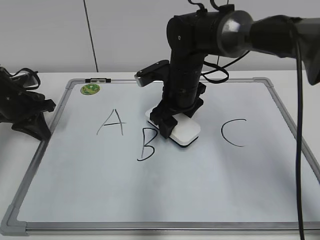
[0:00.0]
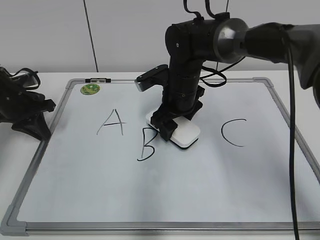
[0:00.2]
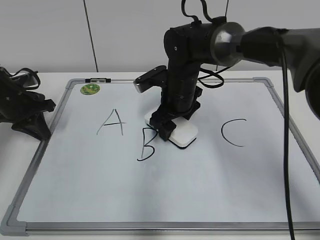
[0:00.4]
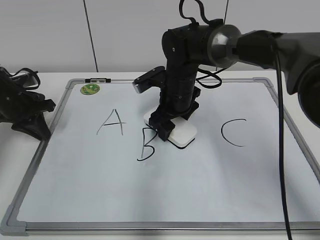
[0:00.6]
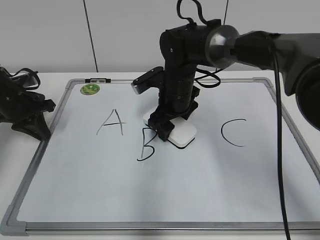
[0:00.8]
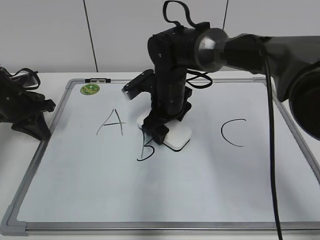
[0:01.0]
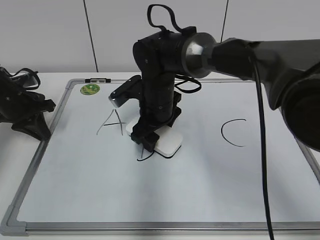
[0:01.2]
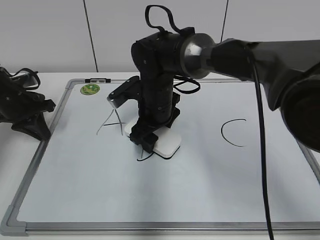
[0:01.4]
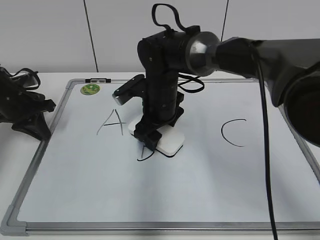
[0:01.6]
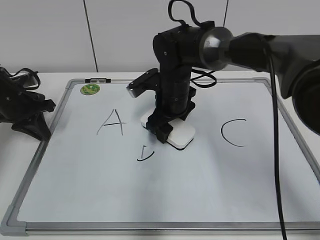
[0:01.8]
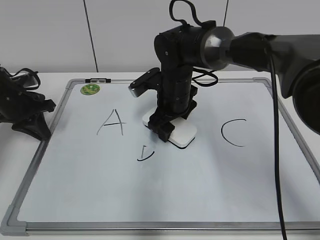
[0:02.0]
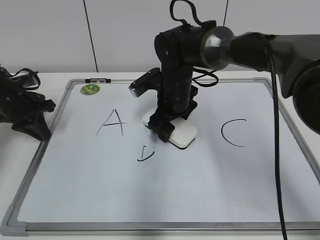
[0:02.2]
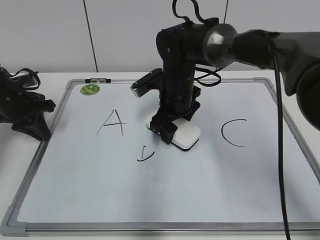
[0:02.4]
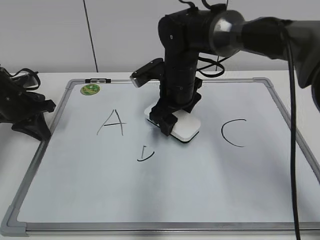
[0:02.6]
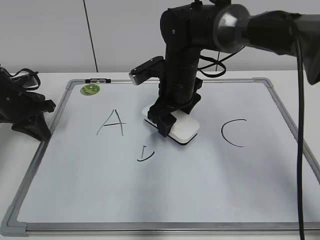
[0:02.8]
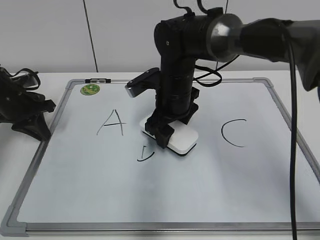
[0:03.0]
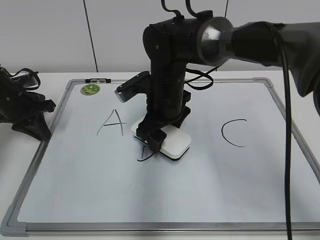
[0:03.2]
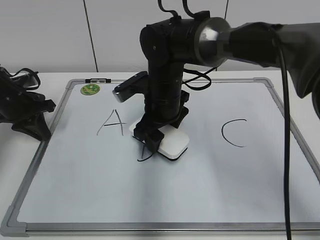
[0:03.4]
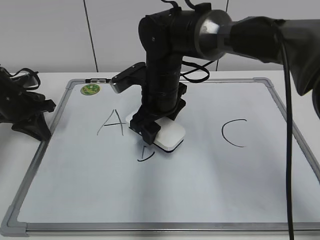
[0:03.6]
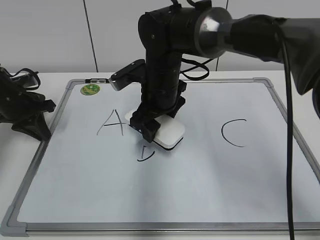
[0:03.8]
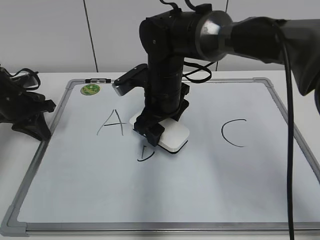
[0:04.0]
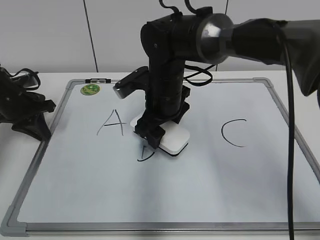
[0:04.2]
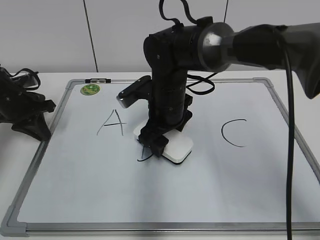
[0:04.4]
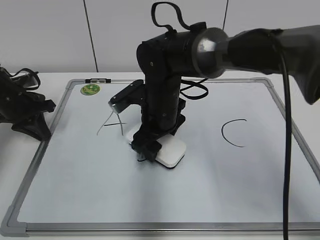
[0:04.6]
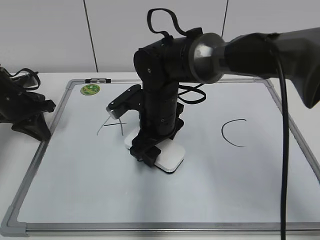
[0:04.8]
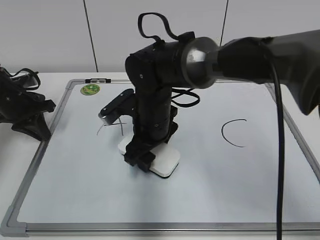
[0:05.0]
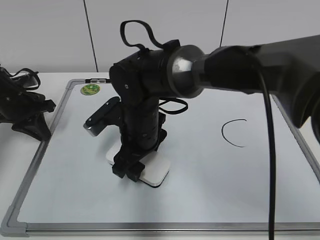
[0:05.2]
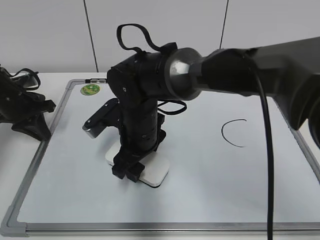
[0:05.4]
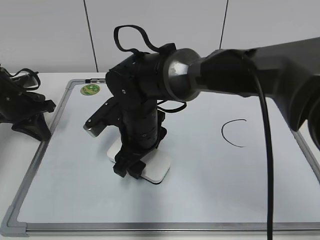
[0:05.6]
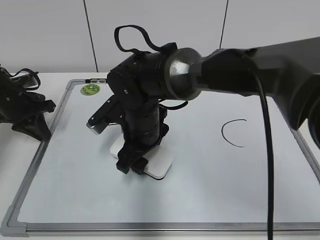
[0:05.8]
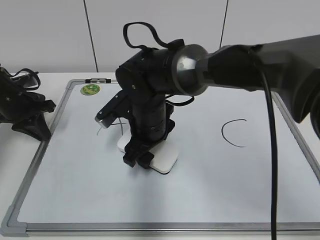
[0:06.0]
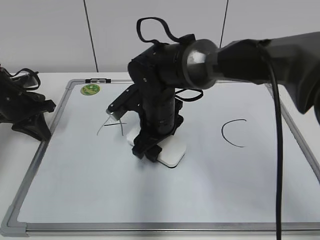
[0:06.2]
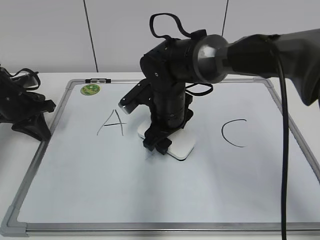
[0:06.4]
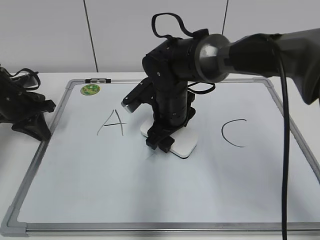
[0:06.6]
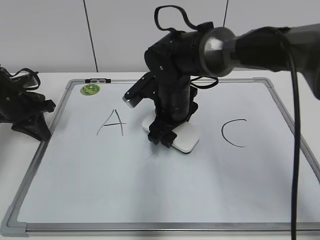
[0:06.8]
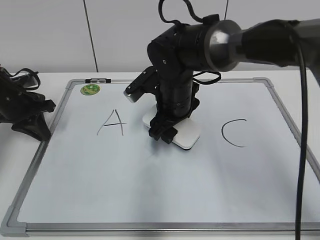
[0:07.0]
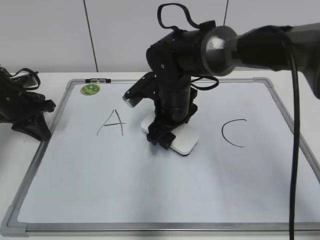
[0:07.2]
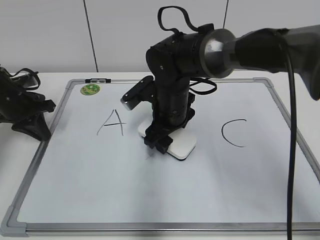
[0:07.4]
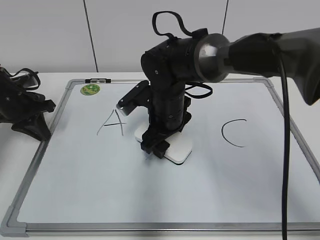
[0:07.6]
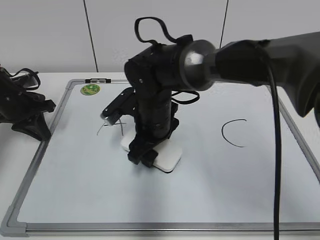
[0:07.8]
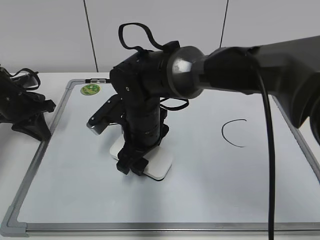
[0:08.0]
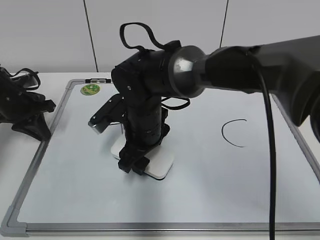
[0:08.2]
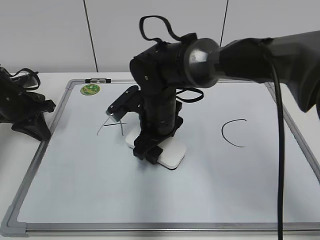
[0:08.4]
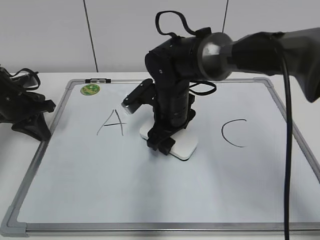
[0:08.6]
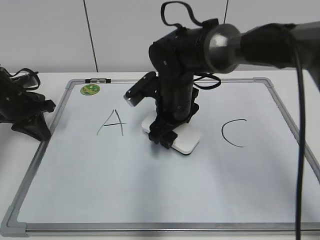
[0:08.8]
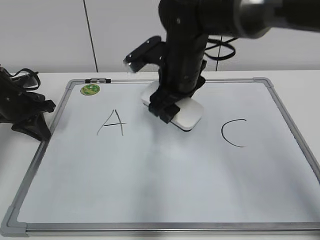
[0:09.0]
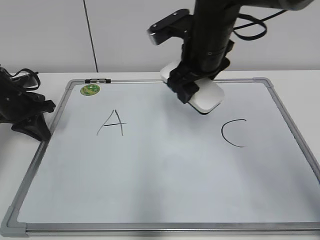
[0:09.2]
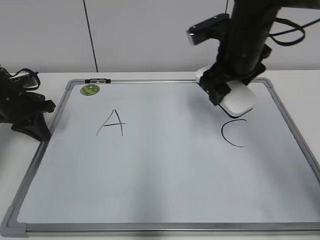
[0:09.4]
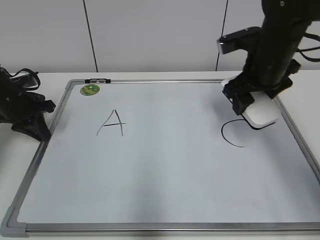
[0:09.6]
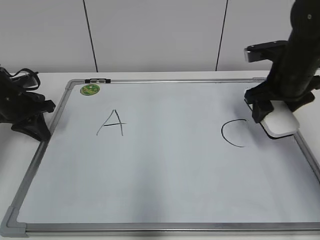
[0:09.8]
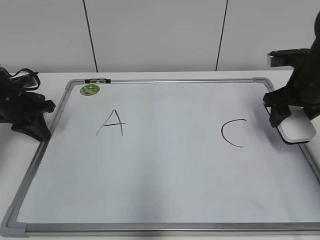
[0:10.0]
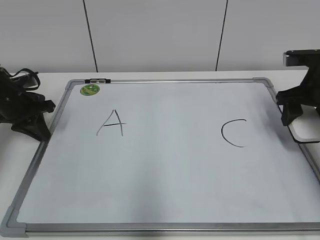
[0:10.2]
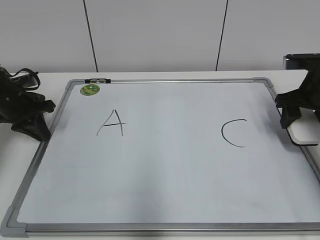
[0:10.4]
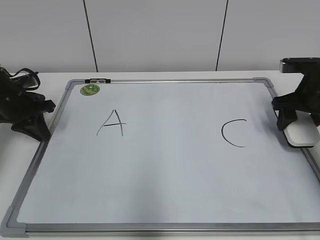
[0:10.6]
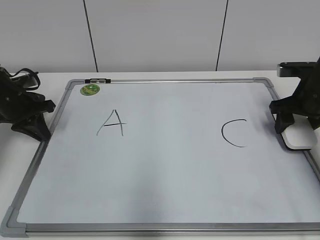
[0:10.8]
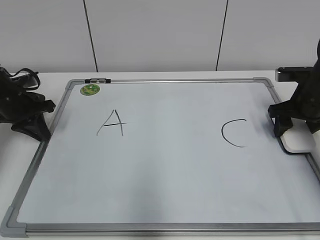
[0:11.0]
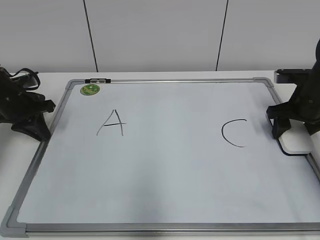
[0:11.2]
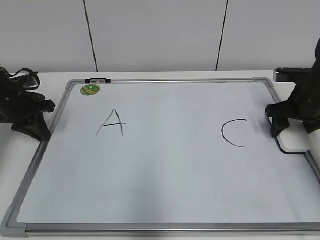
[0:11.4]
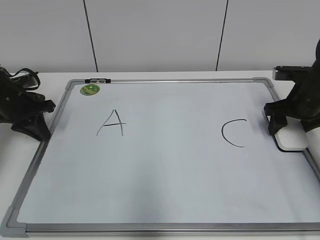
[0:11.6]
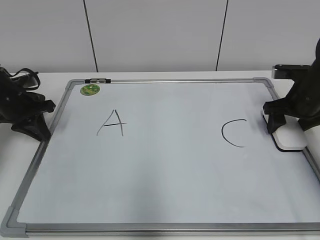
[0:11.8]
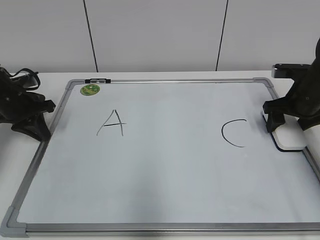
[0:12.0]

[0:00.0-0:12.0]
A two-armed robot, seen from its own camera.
Task of the whole recording: pick up the eraser on the blackboard and erase the letter "B".
Step, 0:00.0 to 0:06.4: Erase the letter B with your right hand.
0:01.6 to 0:04.4: There are only small adjustments of the grippers.
0:04.4 to 0:06.0: The right gripper shifts by approximately 5 cm.
0:07.6 to 0:09.0: The right gripper goes some 5 cm upward.
0:09.0 to 0:10.4: The right gripper shifts roughly 25 cm to the right.
0:10.4 to 0:12.0: The right gripper opens up.

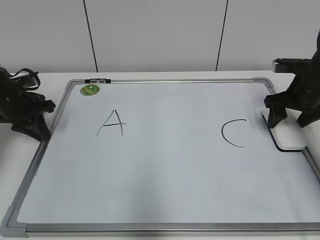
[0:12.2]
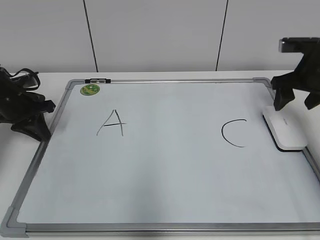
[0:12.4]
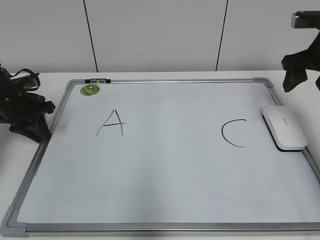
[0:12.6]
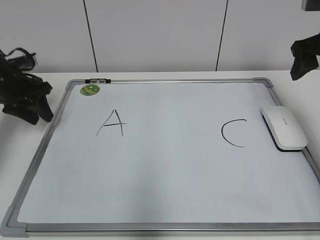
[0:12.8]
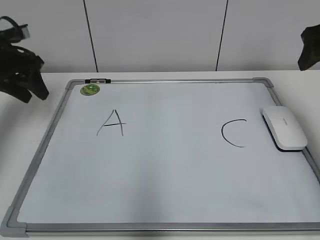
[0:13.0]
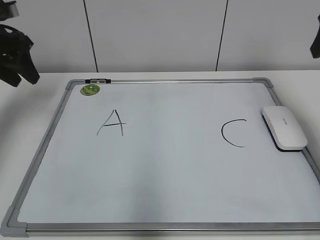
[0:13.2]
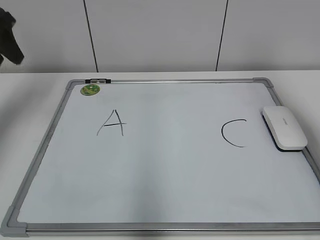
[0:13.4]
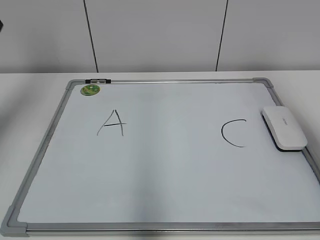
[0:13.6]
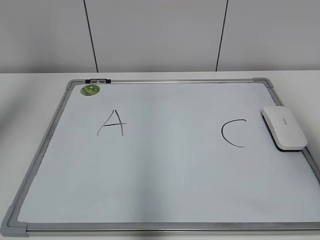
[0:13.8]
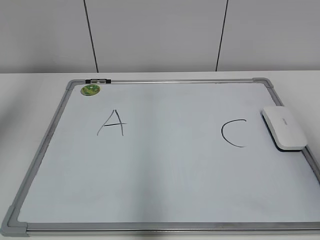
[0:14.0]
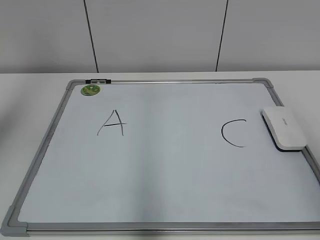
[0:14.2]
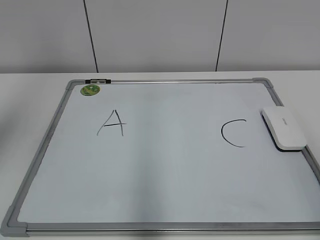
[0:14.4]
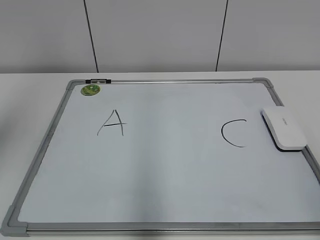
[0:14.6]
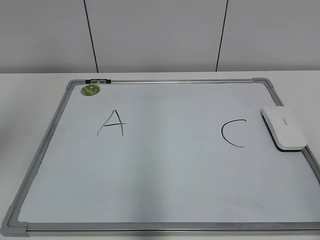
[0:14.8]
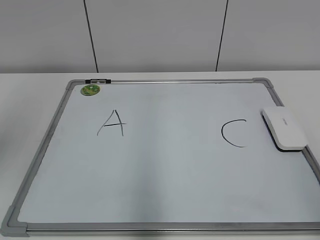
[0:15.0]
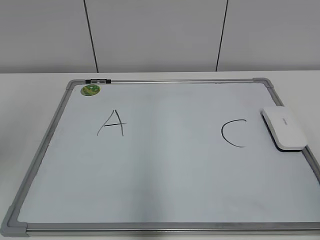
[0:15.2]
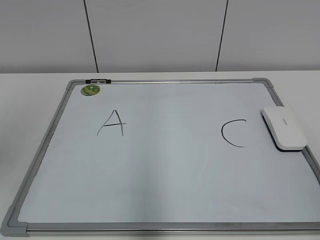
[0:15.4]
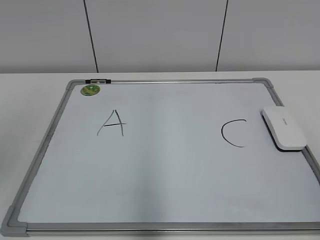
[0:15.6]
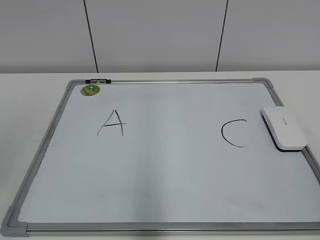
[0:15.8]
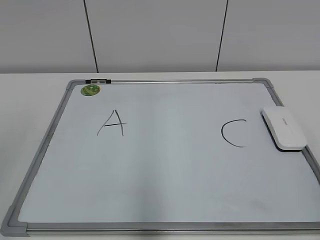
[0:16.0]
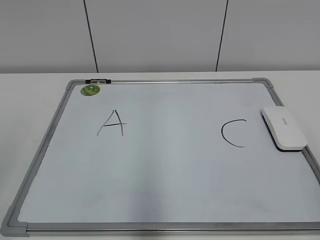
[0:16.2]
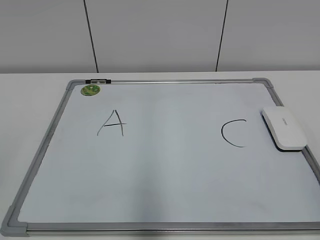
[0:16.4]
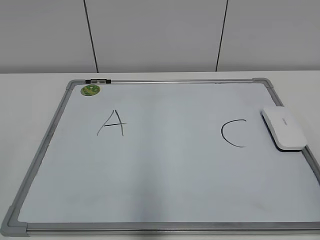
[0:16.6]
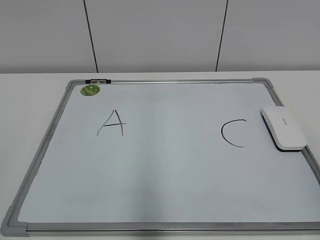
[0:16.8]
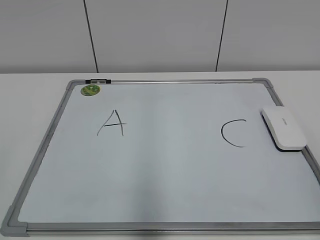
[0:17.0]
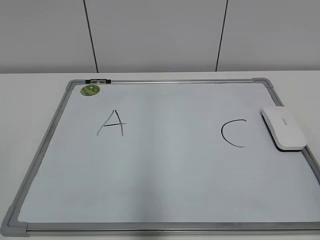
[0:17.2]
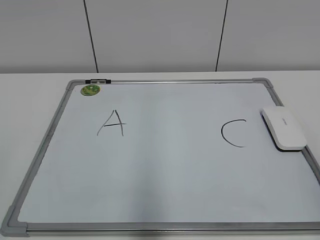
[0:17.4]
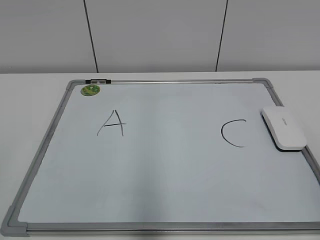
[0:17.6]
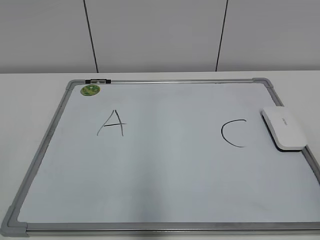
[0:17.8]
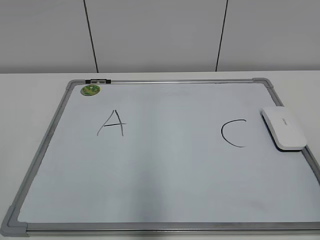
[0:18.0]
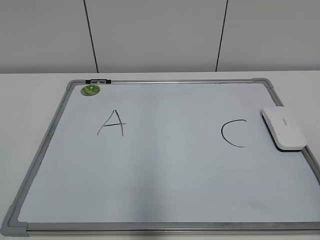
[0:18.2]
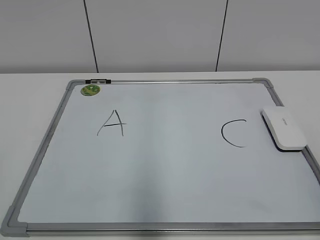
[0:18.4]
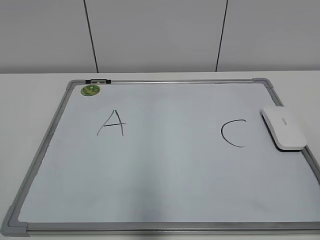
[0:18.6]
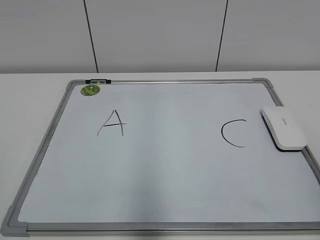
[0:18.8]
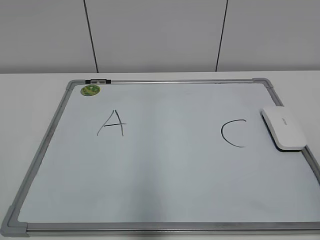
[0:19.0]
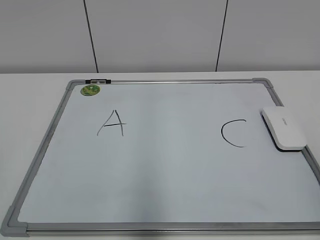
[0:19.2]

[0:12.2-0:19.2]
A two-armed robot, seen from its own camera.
Task of the whole recording: pick up the eraser on the blackboard and erase the letter "B".
0:12.2 to 0:13.6: The right gripper moves upward and backward, some 30 cm, while the left gripper moves upward, roughly 25 cm, and opens its fingers.
0:13.6 to 0:15.0: The right gripper goes approximately 25 cm backward and downward, while the left gripper moves backward, about 15 cm.
